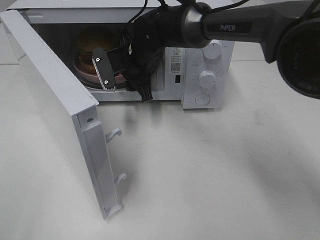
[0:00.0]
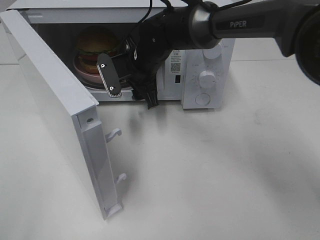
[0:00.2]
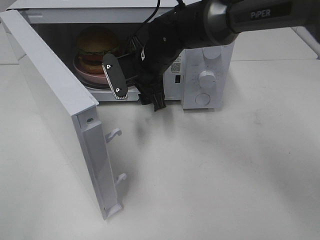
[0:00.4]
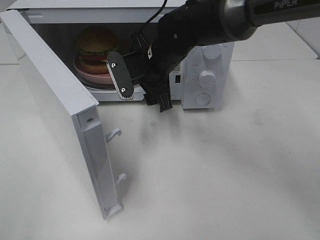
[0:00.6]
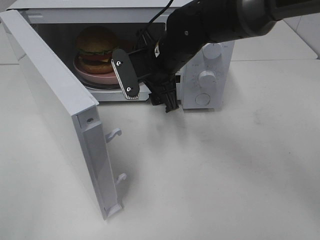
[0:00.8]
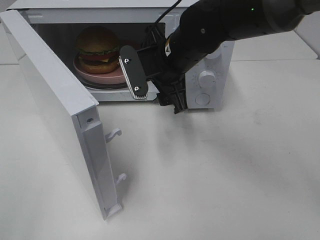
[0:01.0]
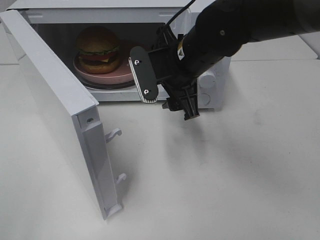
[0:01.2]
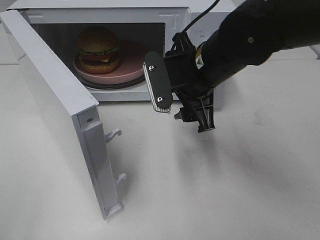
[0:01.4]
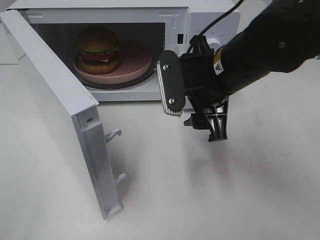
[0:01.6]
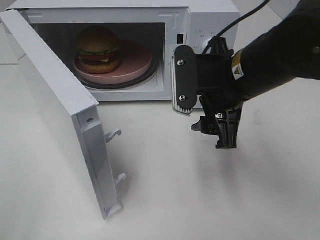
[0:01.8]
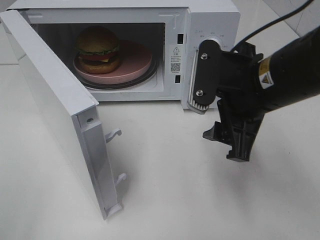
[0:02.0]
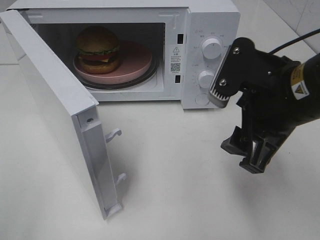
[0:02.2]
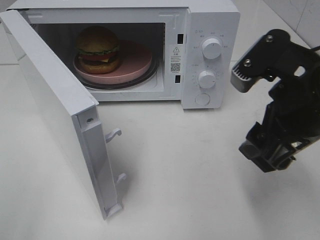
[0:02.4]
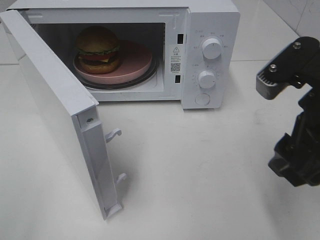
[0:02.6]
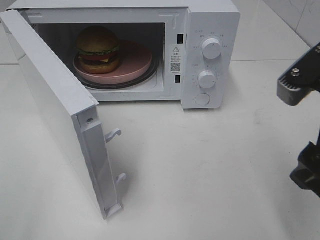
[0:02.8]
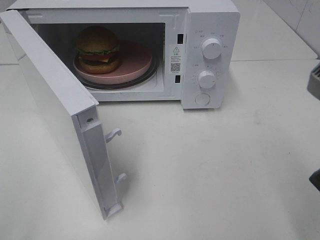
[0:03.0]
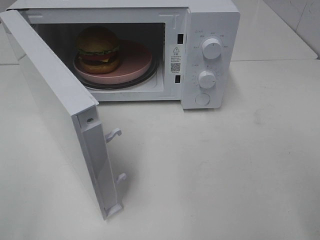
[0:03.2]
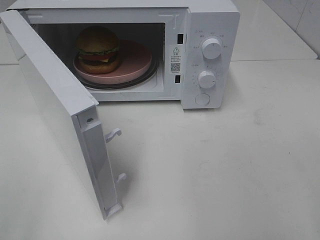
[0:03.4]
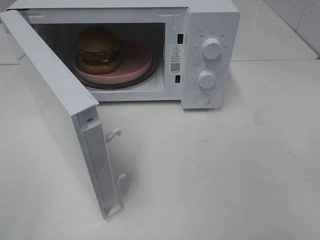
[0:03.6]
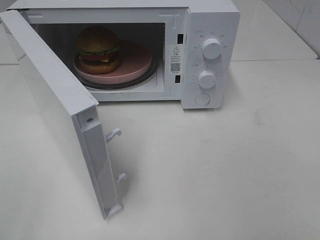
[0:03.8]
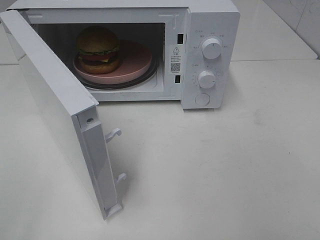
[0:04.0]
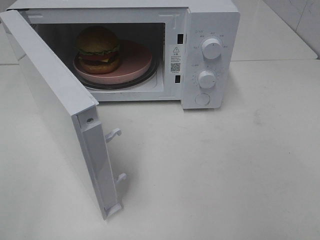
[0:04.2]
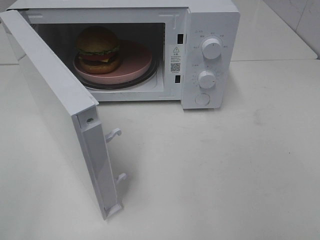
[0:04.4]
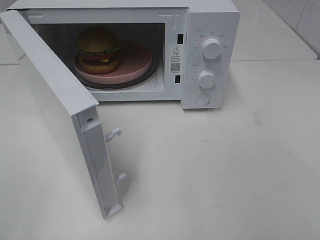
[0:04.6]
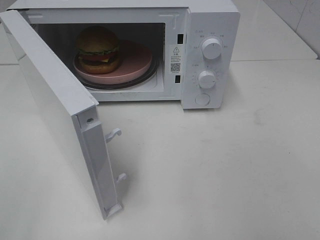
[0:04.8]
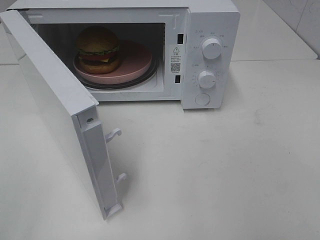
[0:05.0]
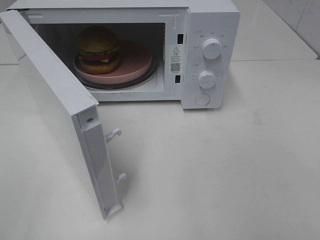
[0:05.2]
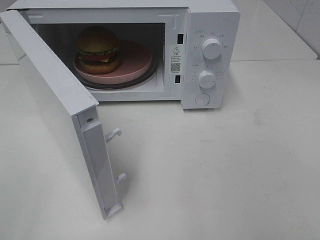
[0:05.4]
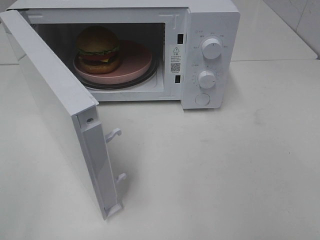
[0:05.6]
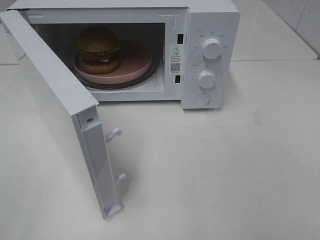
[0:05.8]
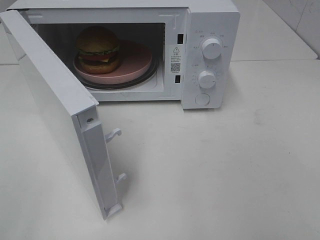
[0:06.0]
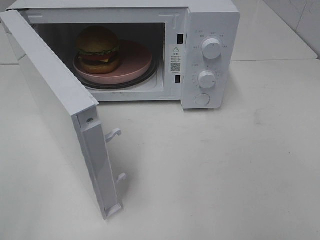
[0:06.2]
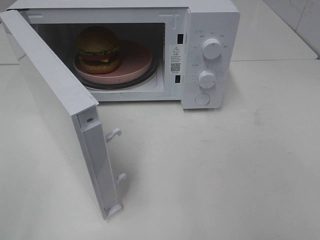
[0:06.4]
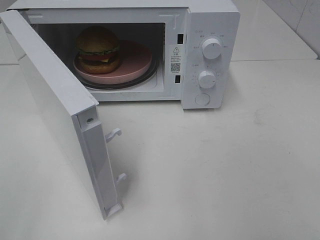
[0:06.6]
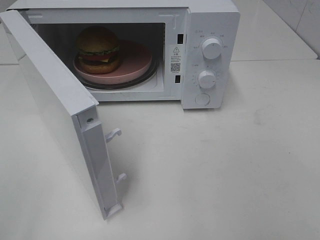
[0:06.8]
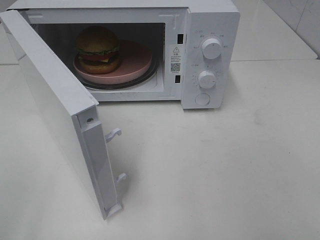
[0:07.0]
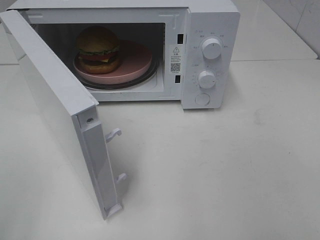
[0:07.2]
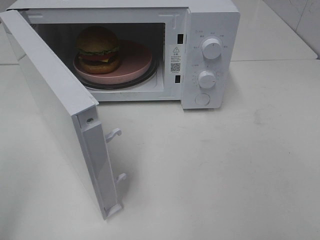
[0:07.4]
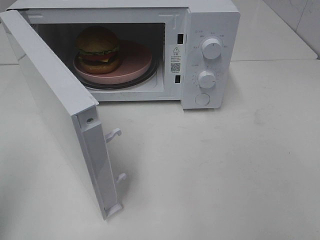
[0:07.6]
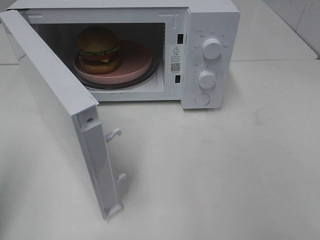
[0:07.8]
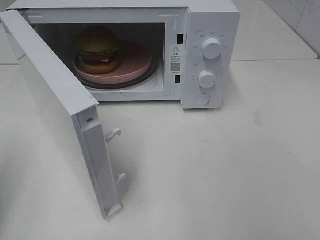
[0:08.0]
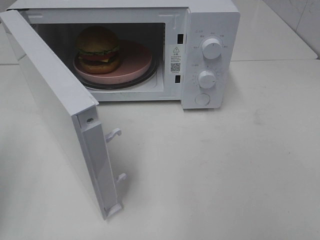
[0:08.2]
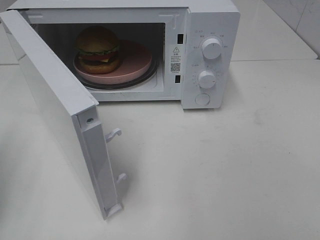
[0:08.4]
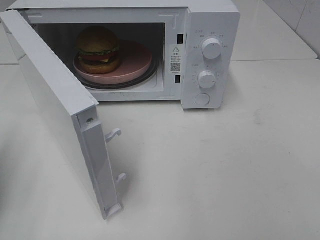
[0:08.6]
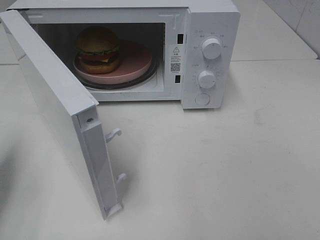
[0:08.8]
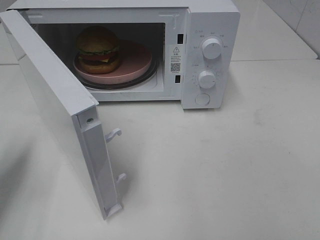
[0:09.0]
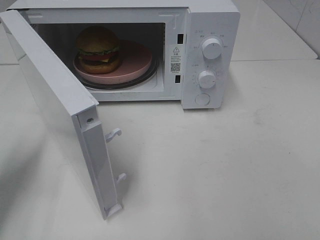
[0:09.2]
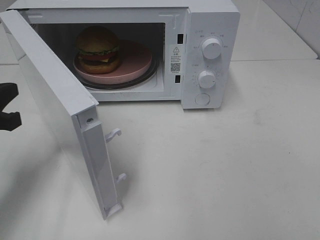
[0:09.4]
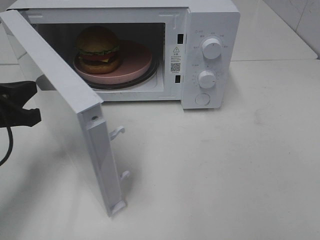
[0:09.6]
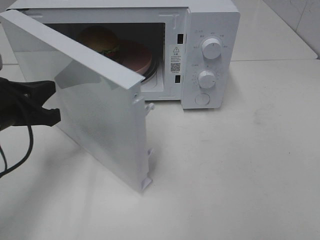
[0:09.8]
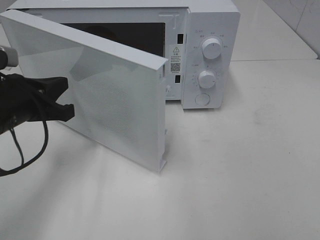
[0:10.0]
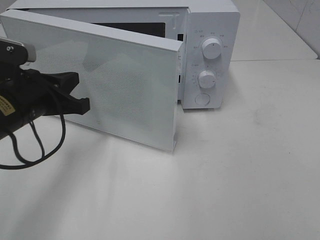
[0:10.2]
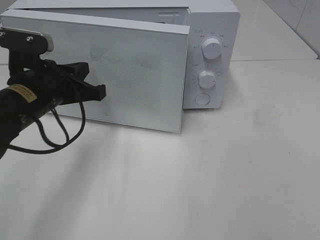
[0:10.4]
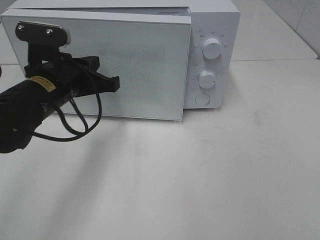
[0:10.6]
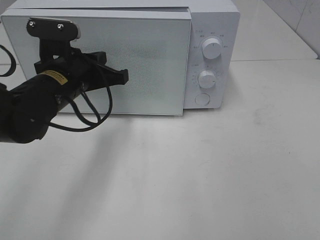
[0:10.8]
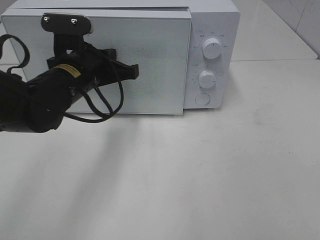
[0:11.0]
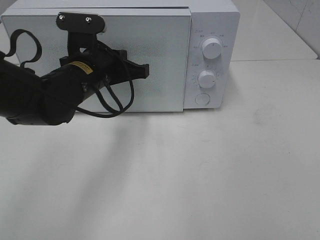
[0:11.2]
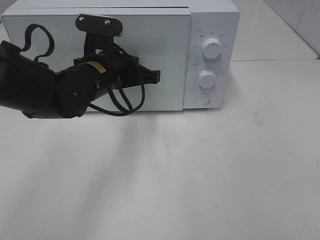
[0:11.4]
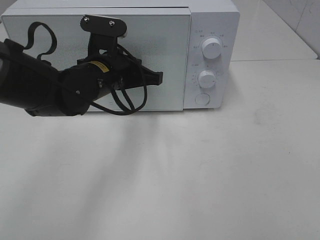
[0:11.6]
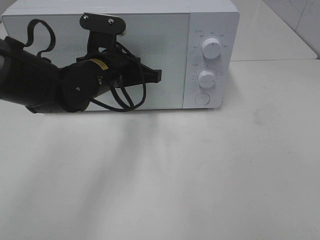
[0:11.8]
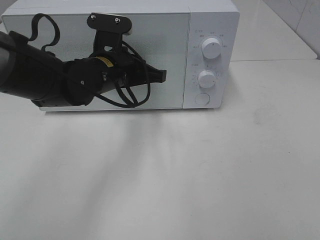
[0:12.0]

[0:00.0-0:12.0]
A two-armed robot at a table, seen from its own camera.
Task of the whole recording: Heat the burger.
0:00.0 to 0:01.6: The right gripper moves backward and to the right, about 20 cm.
0:01.6 to 0:03.0: The right gripper heads backward, to the right and upward, covering some 20 cm.
0:03.0 to 0:04.4: The right gripper heads backward and to the right, covering approximately 15 cm.
0:07.6 to 0:09.0: The left gripper travels forward and downward by some 15 cm.
0:09.0 to 0:10.4: The left gripper goes roughly 15 cm to the right and forward.
0:10.4 to 0:12.0: The left gripper travels to the right and forward by some 10 cm.

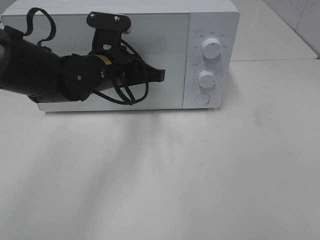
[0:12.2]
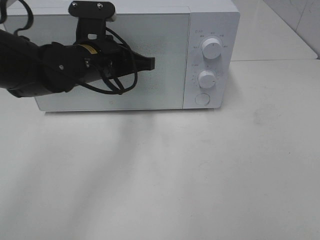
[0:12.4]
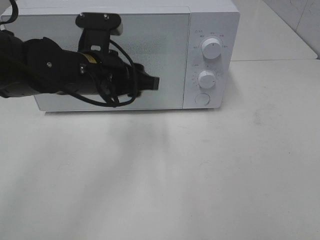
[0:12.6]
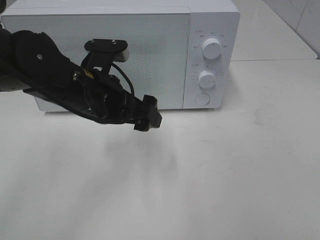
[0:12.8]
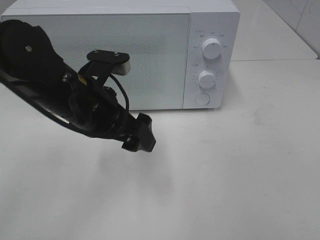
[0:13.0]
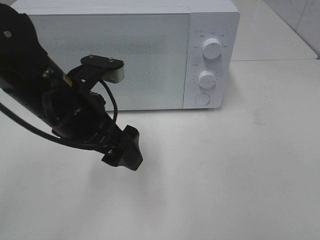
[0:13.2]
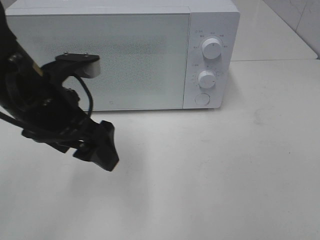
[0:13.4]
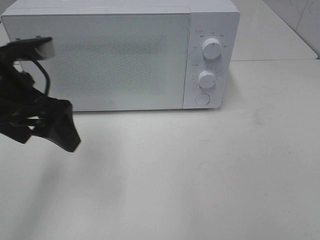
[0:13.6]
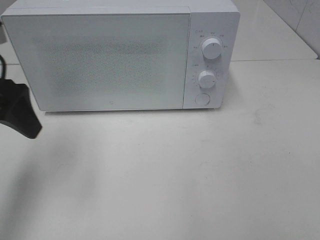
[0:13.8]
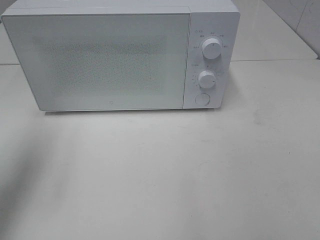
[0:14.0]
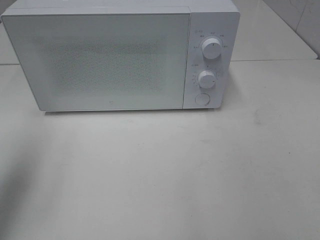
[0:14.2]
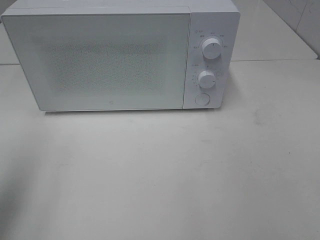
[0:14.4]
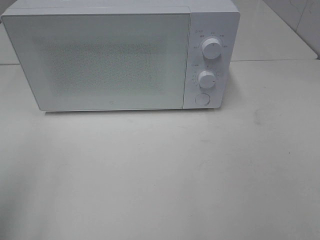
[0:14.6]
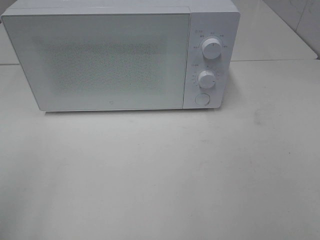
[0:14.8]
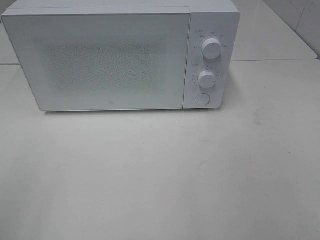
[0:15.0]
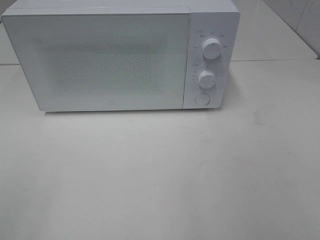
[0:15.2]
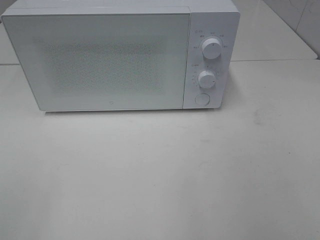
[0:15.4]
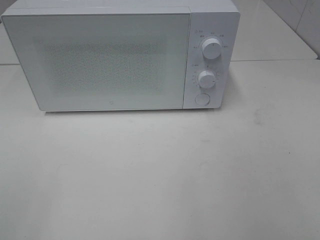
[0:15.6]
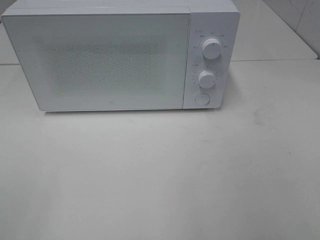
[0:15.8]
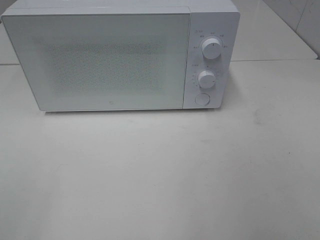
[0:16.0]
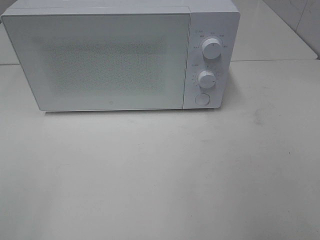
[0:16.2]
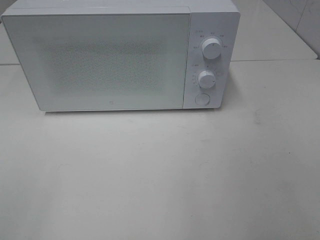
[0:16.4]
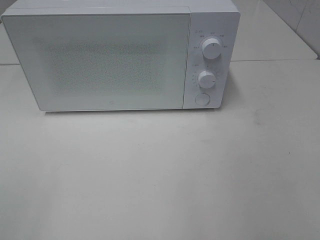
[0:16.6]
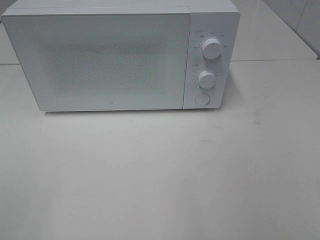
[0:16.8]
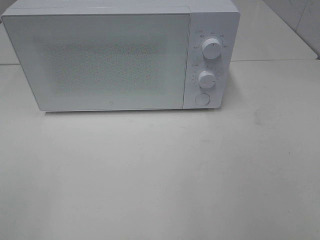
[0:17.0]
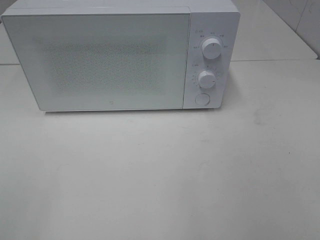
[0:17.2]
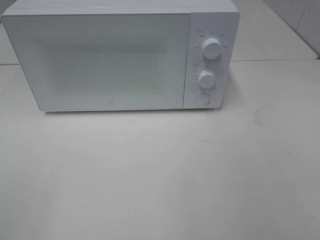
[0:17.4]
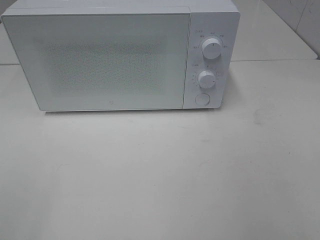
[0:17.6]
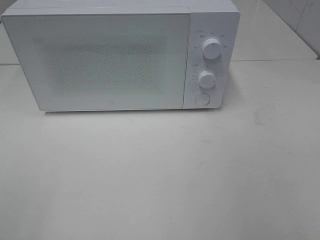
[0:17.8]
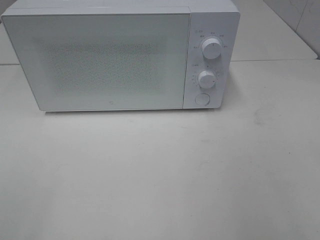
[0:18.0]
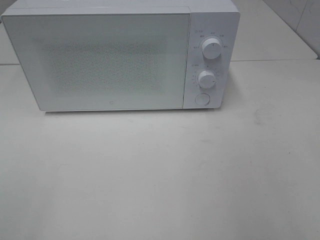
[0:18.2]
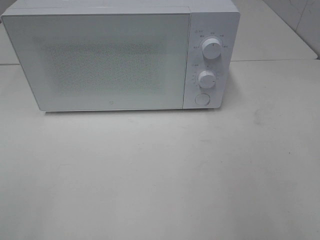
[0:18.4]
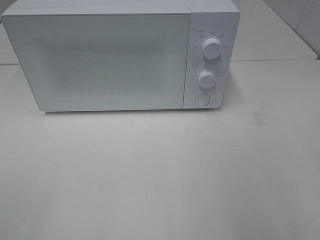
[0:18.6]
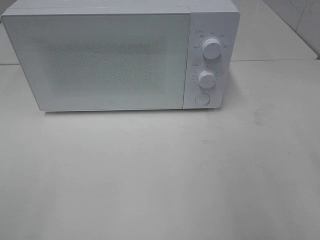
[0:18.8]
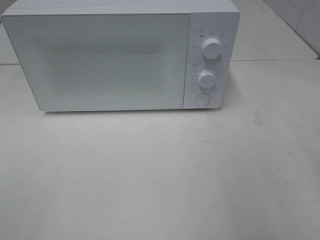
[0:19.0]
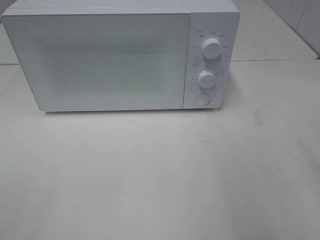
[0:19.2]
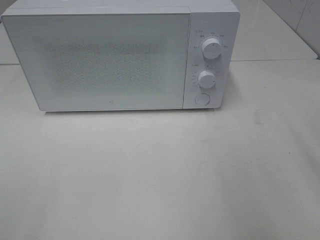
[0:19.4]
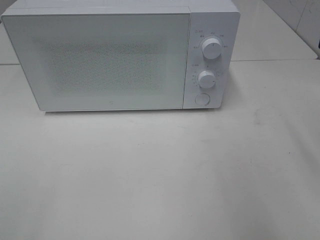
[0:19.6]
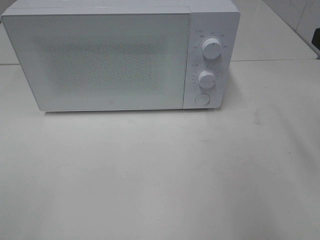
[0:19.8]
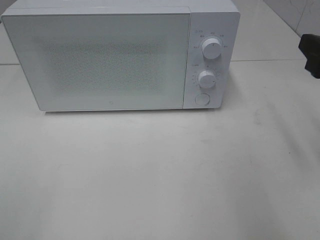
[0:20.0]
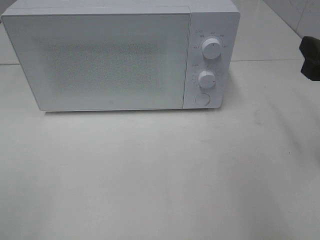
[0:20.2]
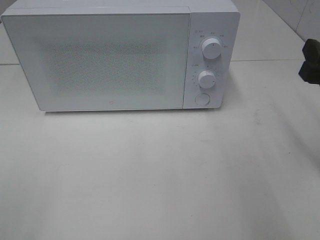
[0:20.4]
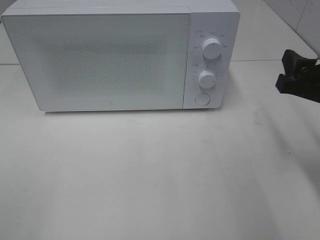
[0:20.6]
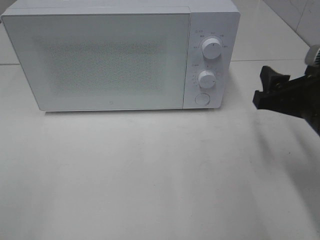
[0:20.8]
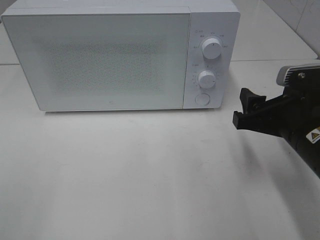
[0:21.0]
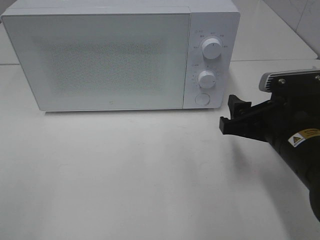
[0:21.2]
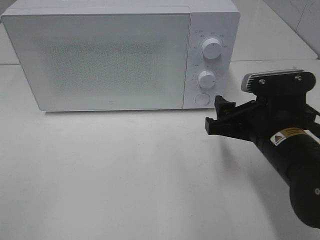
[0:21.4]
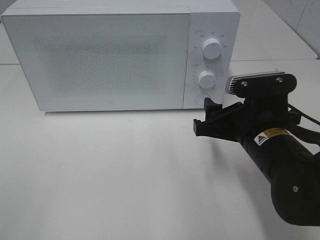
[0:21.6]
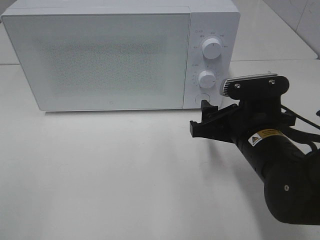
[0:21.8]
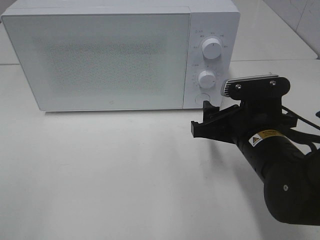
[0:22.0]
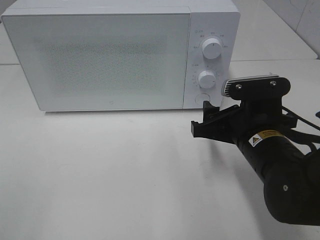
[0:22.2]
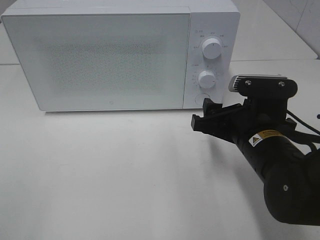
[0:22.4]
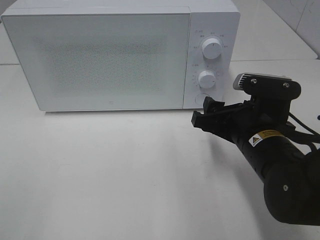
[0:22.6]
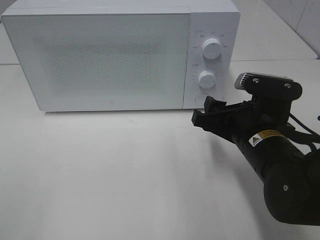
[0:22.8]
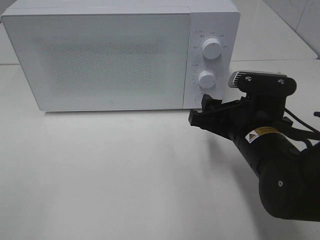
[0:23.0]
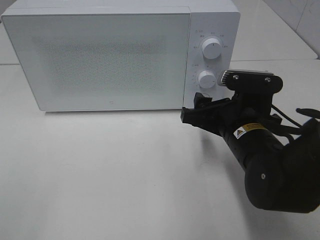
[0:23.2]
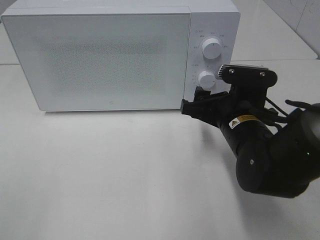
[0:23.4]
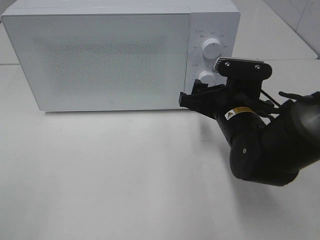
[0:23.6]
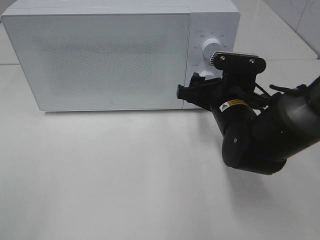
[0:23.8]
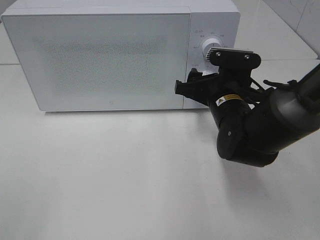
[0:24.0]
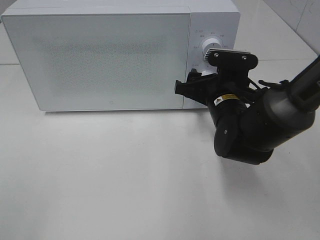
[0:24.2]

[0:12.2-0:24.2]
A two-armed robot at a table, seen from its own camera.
Task of the whole recording: Heat the burger.
0:12.2 to 0:13.8: The left gripper moves to the left, backward and upward, approximately 20 cm, and opens its fingers.
0:13.8 to 0:15.2: The left gripper moves backward, roughly 25 cm.
0:15.2 to 0:16.6: The two grippers keep their place.
0:19.8 to 0:21.2: The right gripper is displaced downward and to the left by some 15 cm.
0:21.2 to 0:22.6: The grippers move only a little.
0:22.6 to 0:24.2: The right gripper shifts roughly 10 cm forward.
